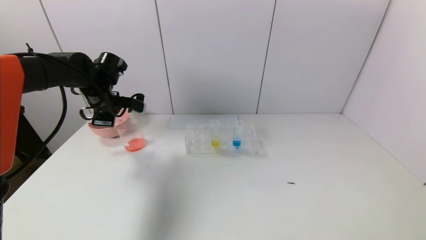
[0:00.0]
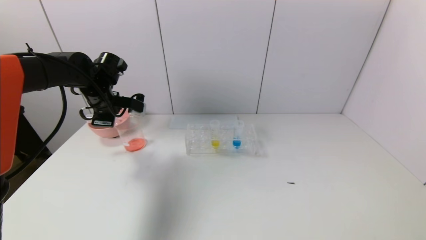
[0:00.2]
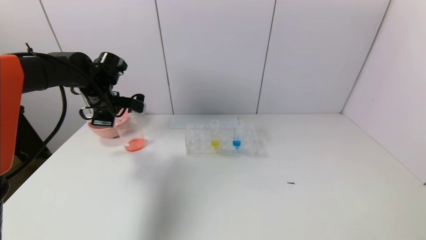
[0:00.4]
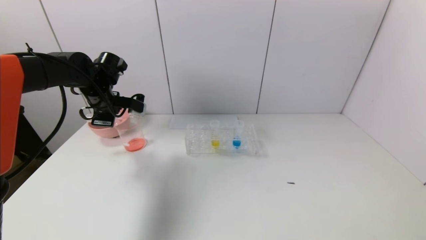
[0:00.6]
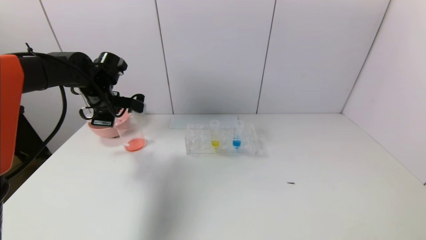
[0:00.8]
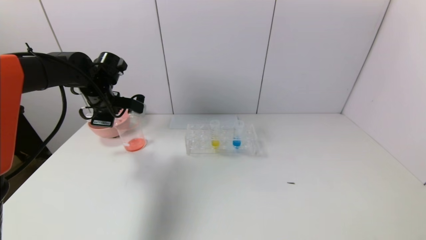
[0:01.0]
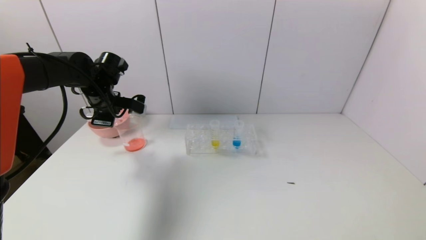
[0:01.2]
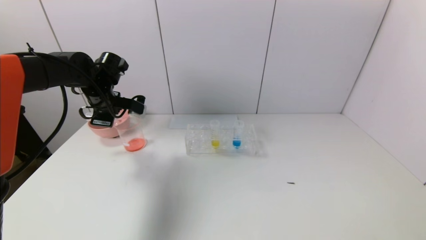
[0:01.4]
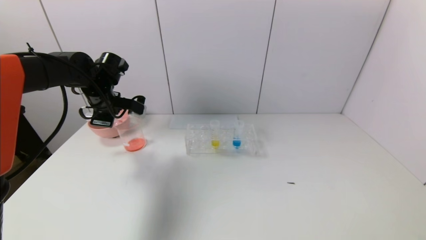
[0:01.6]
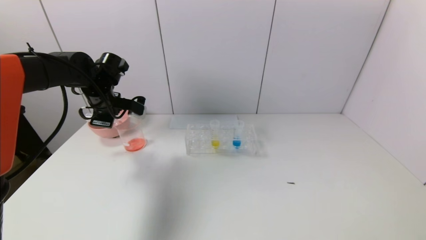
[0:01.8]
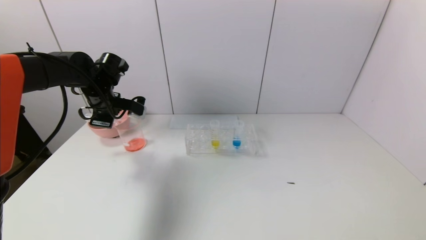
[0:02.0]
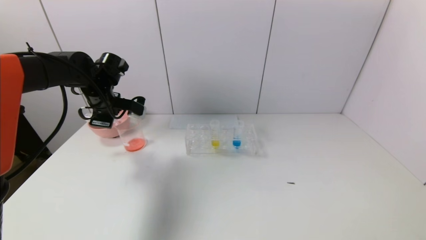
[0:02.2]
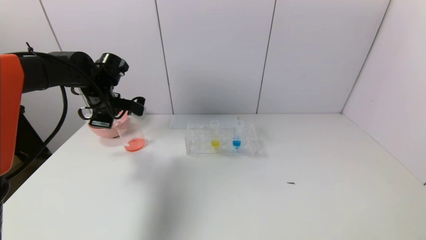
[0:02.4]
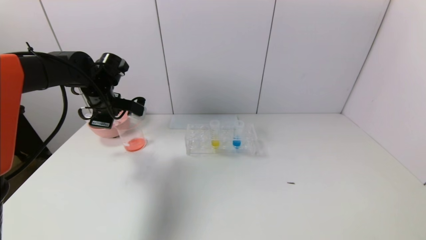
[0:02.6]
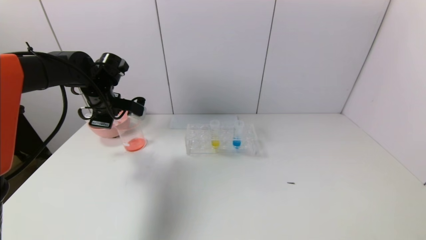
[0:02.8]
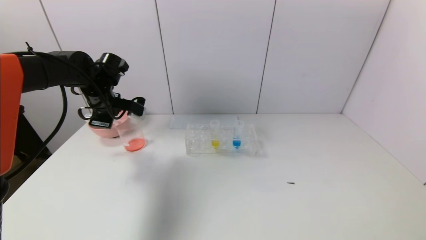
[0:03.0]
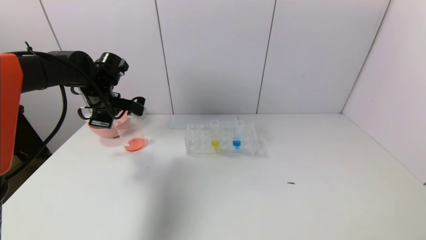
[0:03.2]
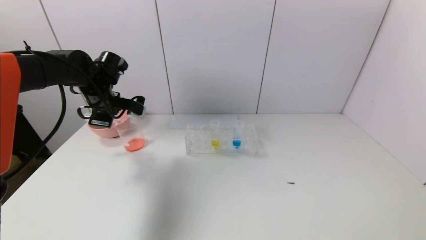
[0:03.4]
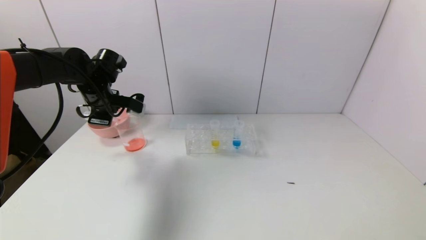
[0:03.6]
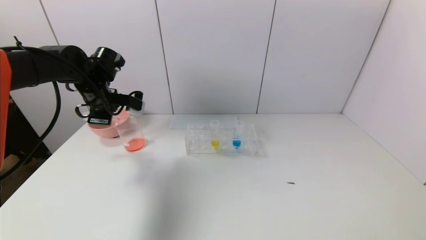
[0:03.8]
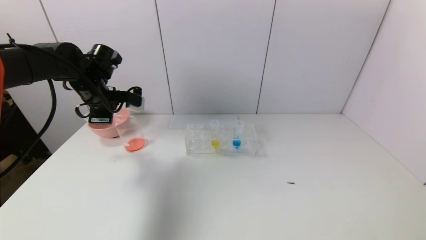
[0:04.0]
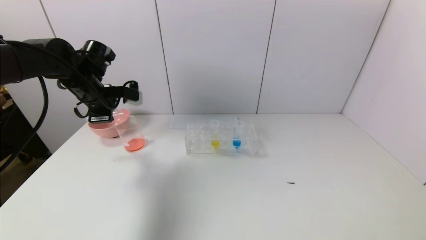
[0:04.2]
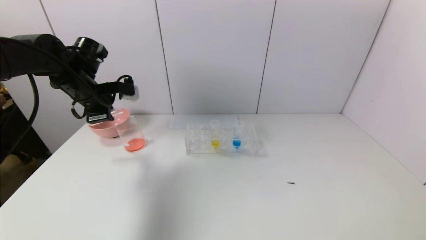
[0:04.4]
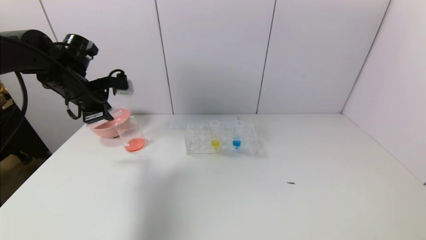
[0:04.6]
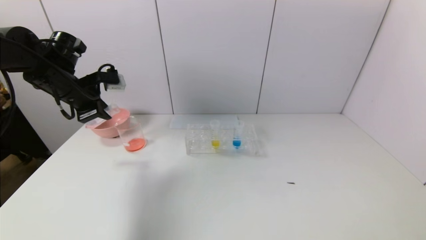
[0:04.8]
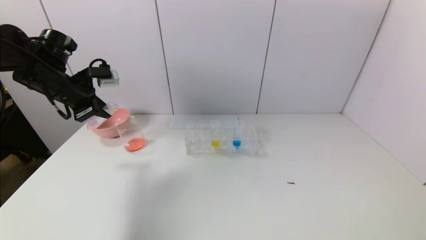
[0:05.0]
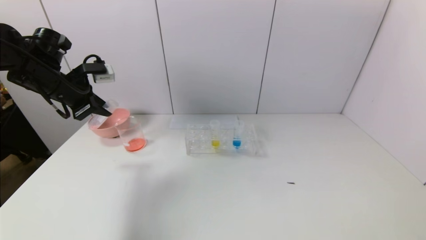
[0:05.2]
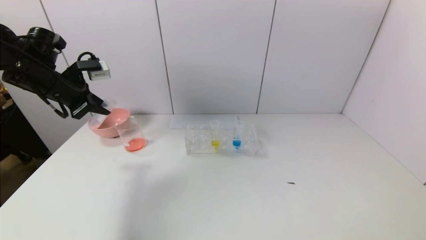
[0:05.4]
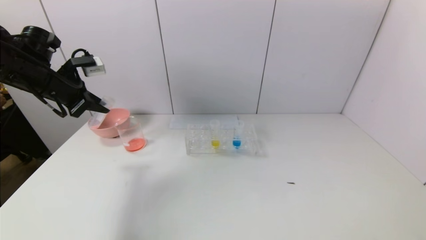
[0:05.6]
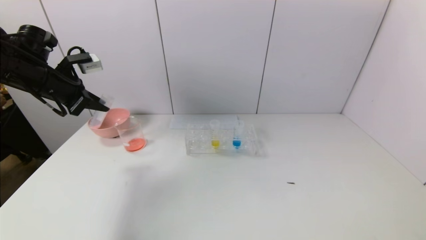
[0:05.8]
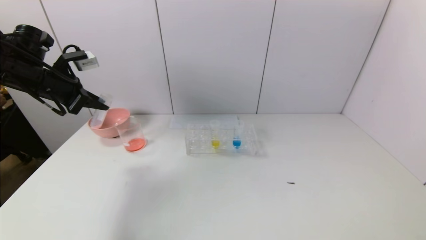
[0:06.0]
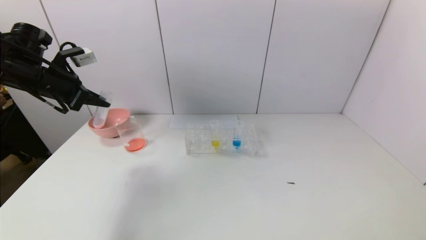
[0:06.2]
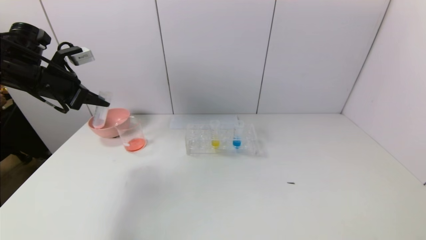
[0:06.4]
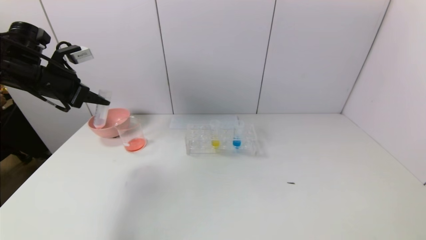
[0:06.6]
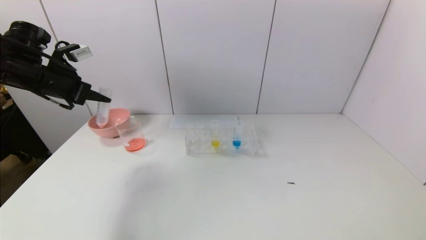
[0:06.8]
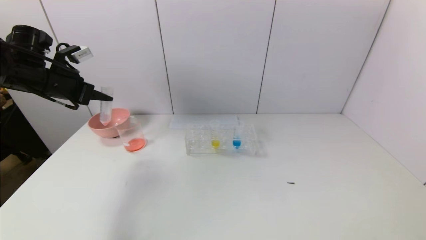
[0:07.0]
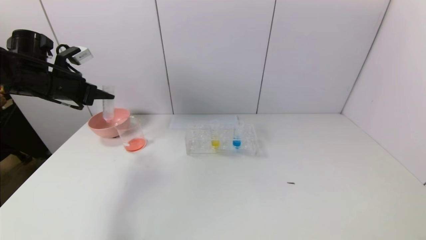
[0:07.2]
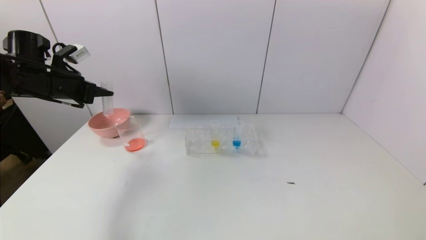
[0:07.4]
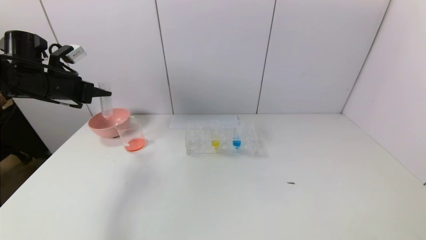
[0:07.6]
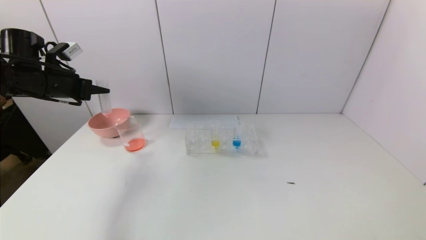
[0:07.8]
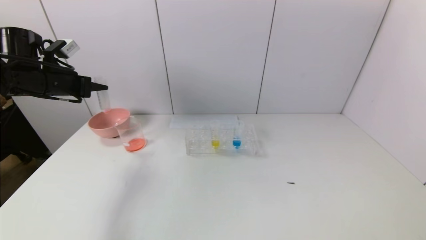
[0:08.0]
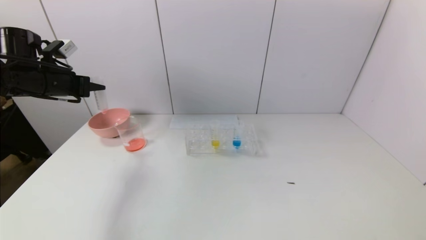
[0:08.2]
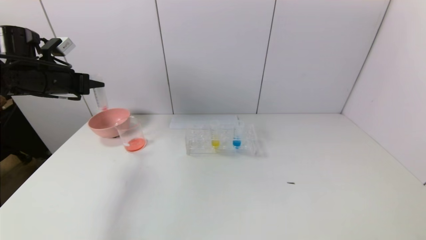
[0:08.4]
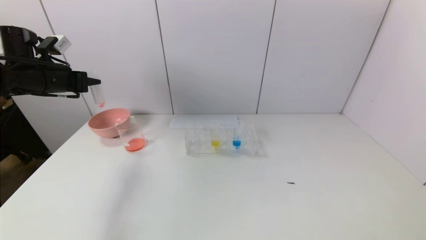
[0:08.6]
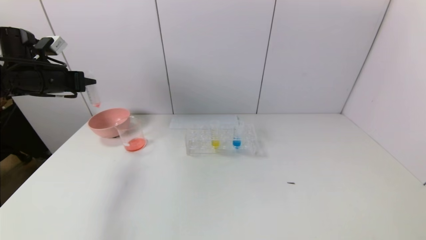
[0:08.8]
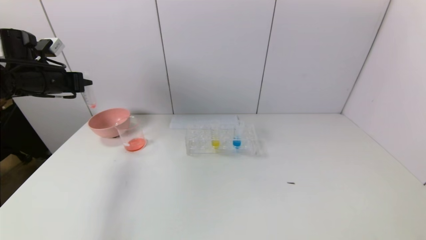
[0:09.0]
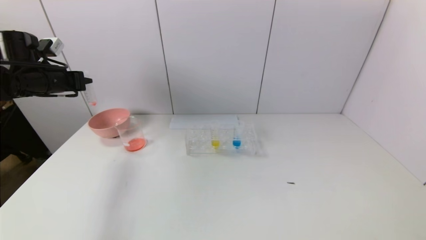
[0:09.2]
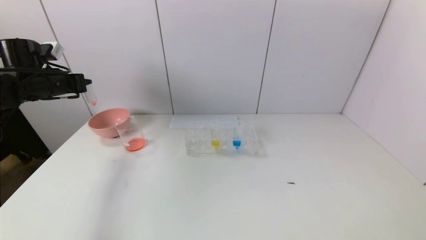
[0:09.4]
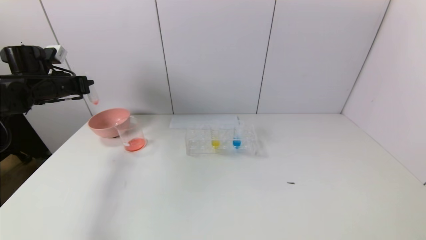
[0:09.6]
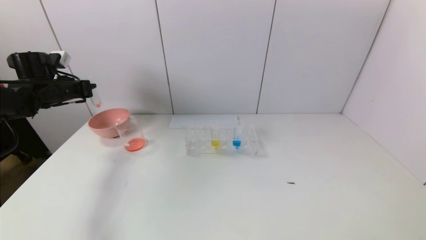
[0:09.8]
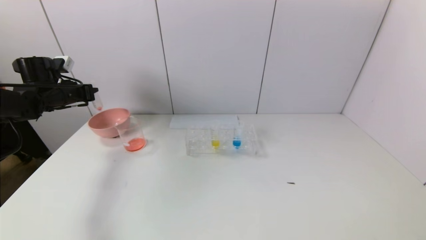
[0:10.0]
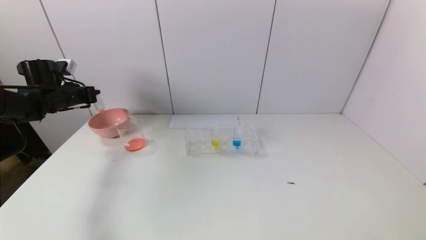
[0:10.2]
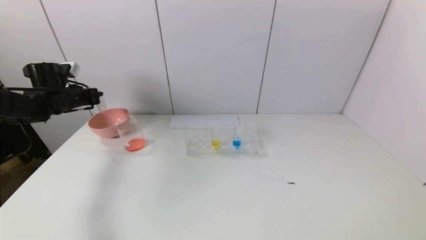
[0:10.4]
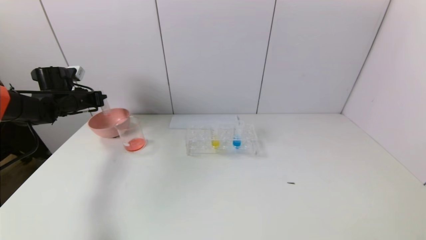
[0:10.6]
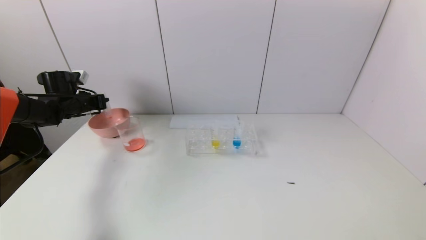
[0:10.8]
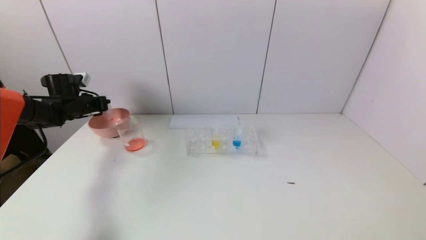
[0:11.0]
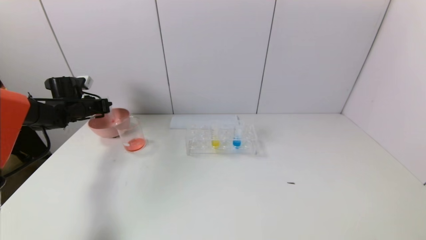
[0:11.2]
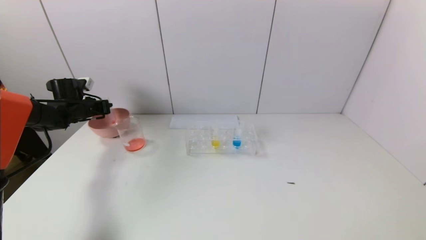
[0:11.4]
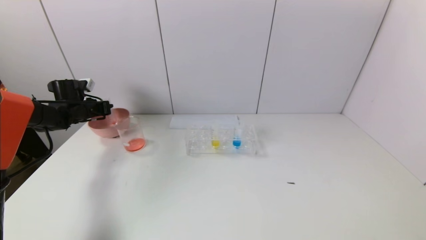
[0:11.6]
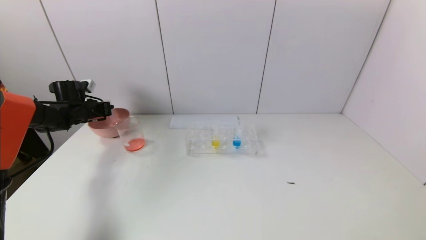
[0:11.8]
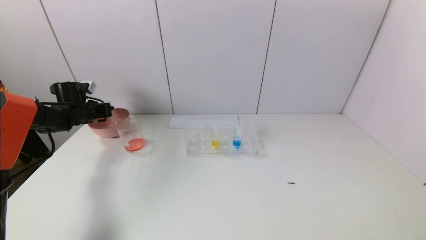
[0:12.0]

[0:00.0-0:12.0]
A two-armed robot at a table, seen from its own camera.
Task of the whole recording: pick up the test tube with yellow pigment and the test tube with red pigment by grippers and pour them into the beaker.
Step, 0:00.0 to 0:03.6: Pour the red reagent into the graduated cylinder with the left gripper.
0:00.0 to 0:01.6: Neither gripper changes place.
0:01.6 to 0:03.0: Both grippers stay put.
0:04.4 to 0:06.0: The left gripper travels to the left by some 5 cm.
0:09.0 to 0:10.4: The left gripper heads downward and forward, covering about 10 cm.
0:10.4 to 0:12.0: The left gripper goes about 5 cm downward.

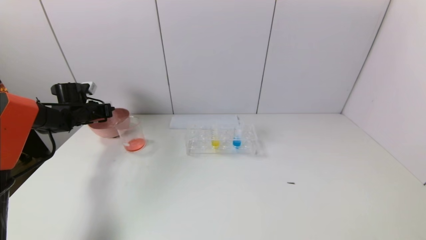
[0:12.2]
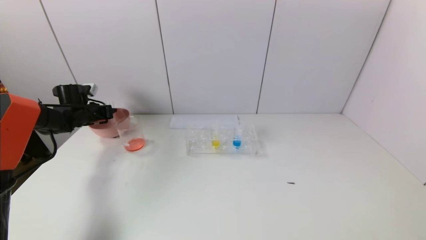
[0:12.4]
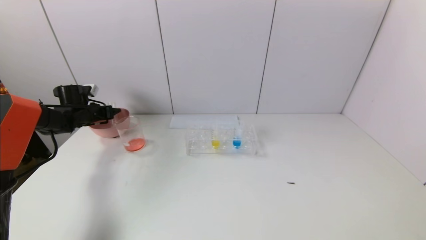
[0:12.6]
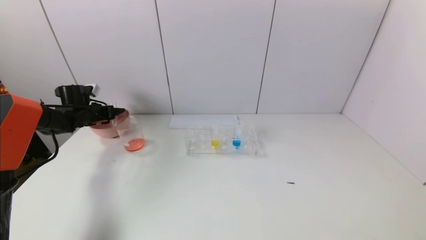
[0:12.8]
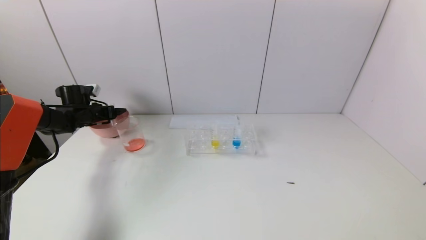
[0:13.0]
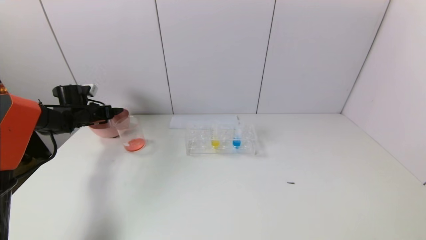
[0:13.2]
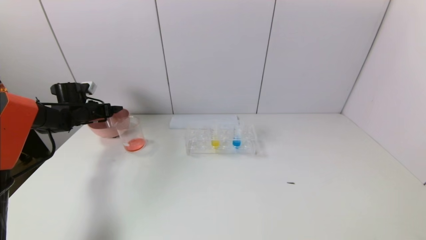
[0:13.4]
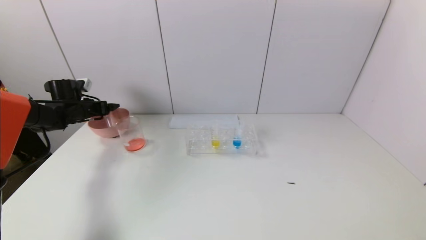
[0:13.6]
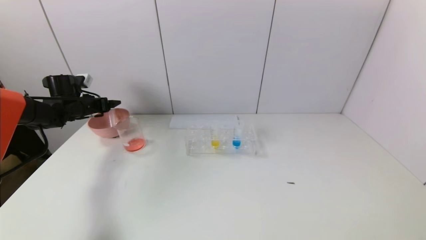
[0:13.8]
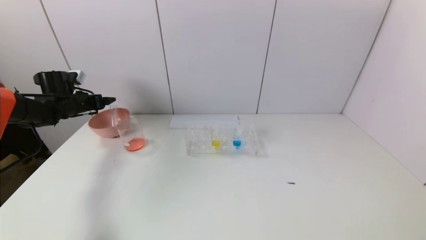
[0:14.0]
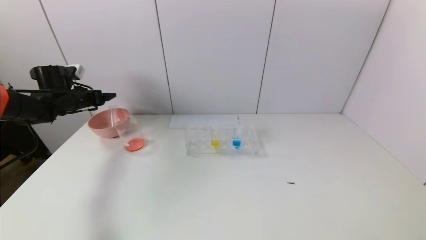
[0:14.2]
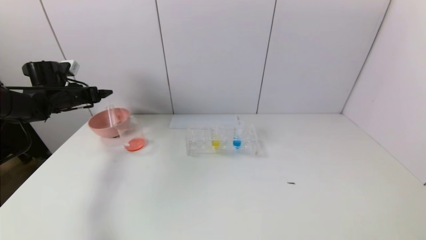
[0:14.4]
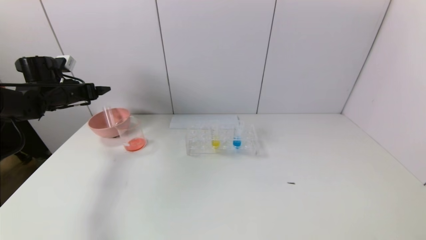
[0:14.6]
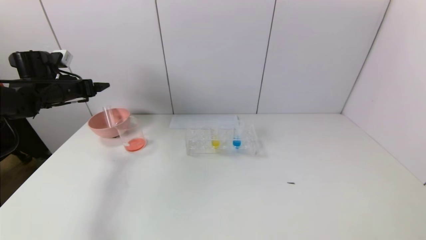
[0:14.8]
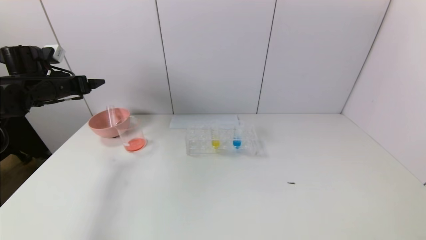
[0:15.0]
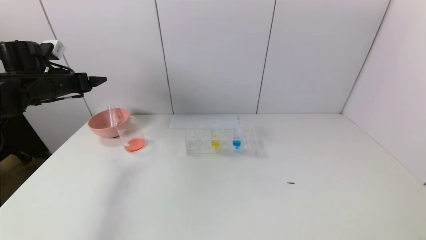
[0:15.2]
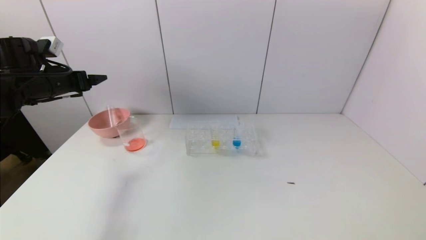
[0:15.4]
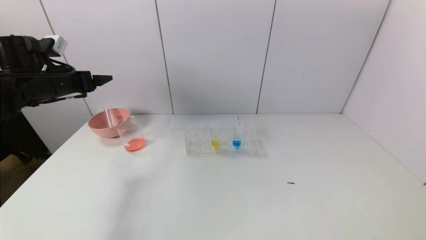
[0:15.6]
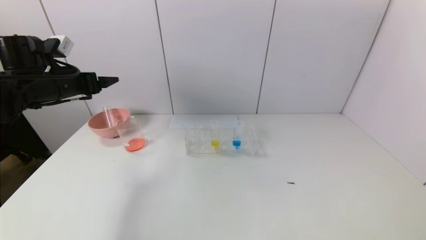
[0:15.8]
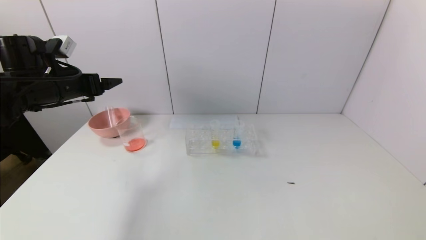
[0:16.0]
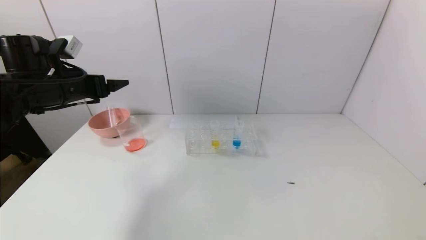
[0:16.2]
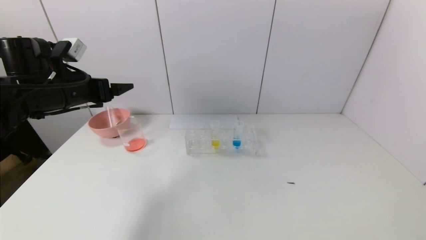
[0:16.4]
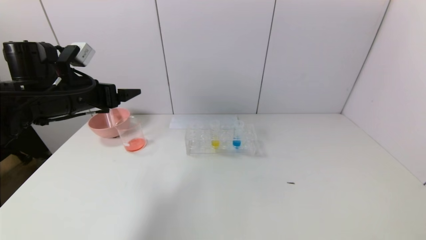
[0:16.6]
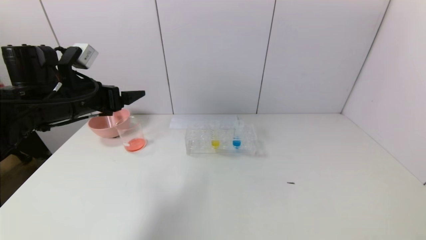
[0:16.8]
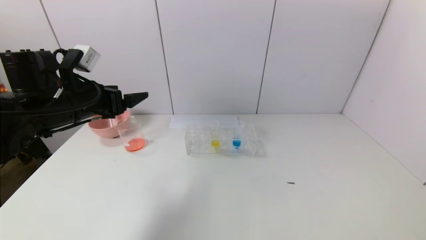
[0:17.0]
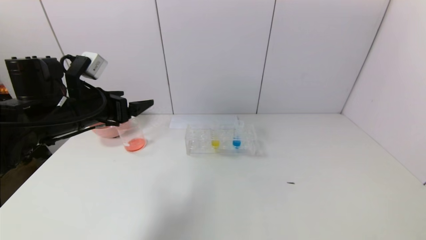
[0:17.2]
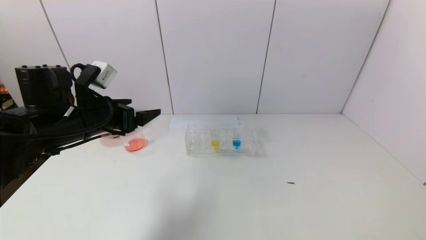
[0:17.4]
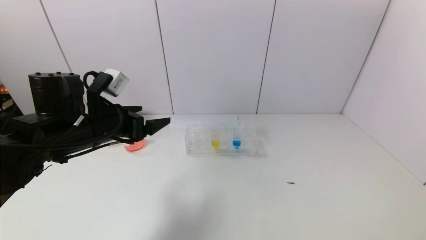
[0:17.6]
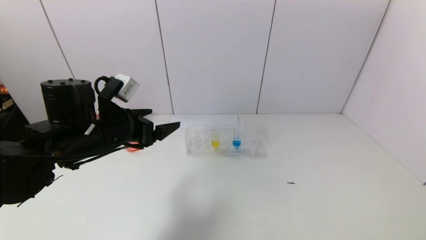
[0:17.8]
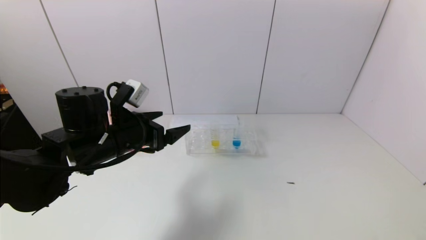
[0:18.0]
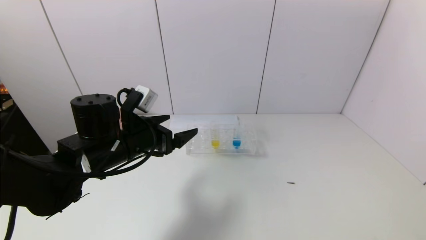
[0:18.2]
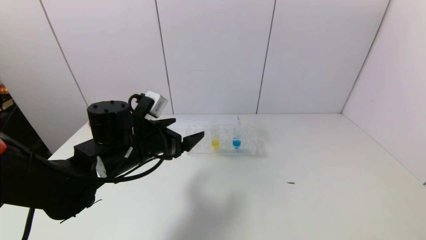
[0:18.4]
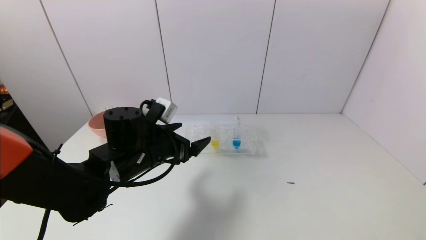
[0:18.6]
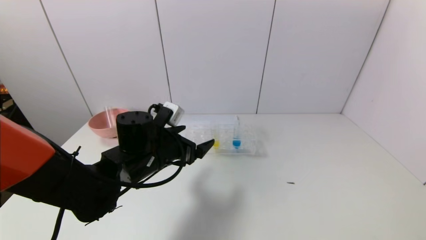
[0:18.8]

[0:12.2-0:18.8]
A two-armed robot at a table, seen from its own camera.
Task of the whole recording: pick up the test tube with yellow pigment and the test tube with red pigment by grippers and pour them into the beaker.
0:12.2 to 0:13.8: The left gripper opens up.
0:13.8 to 0:15.4: The left gripper shifts about 15 cm upward and backward.
0:15.4 to 0:17.2: The left gripper is displaced to the right and backward by about 15 cm.
0:17.2 to 0:18.8: The left gripper goes some 15 cm to the right and downward.
